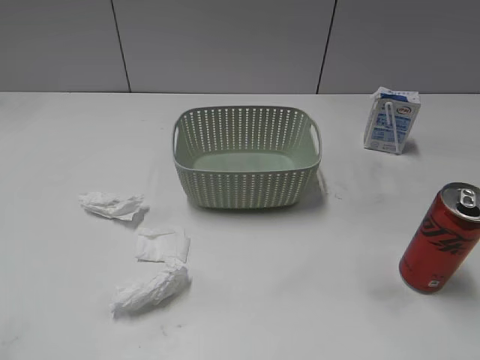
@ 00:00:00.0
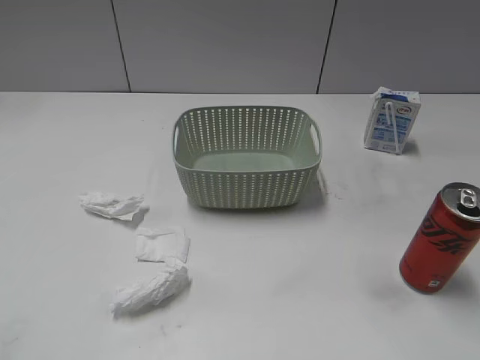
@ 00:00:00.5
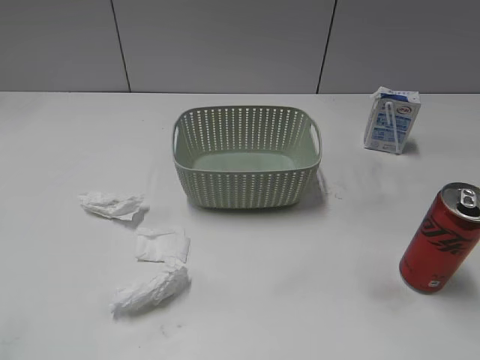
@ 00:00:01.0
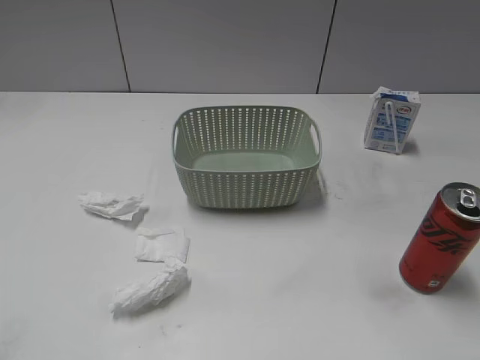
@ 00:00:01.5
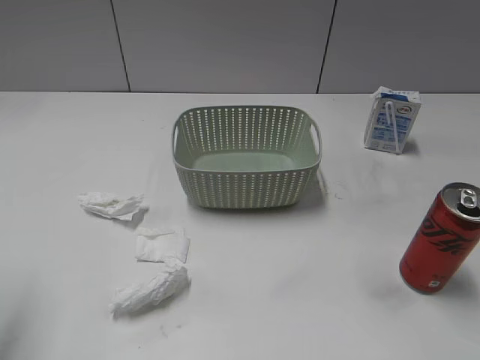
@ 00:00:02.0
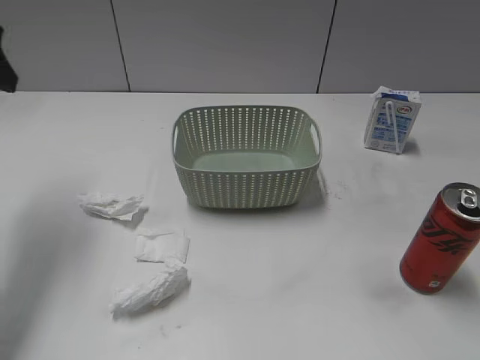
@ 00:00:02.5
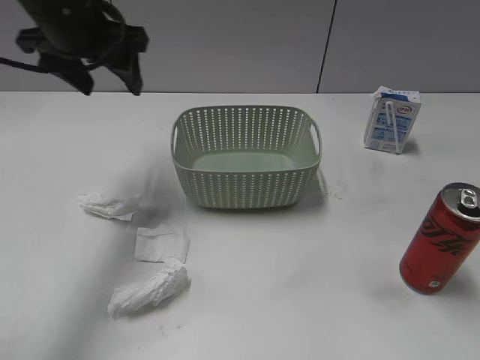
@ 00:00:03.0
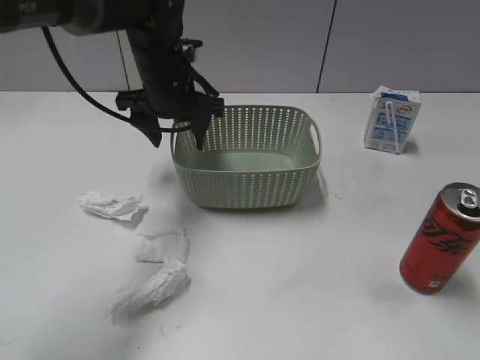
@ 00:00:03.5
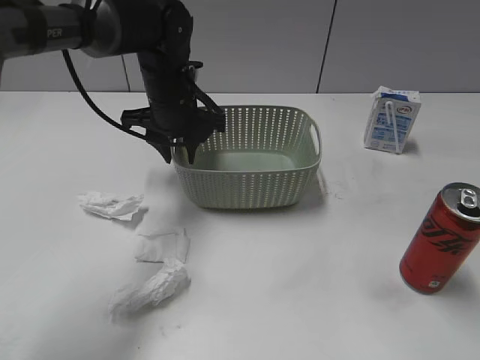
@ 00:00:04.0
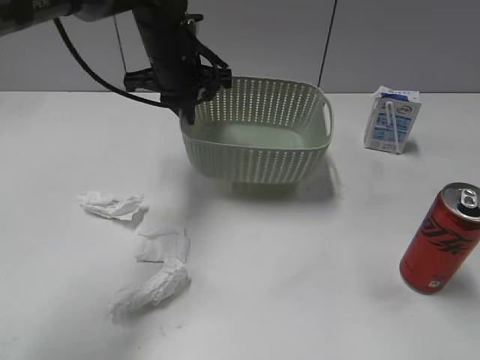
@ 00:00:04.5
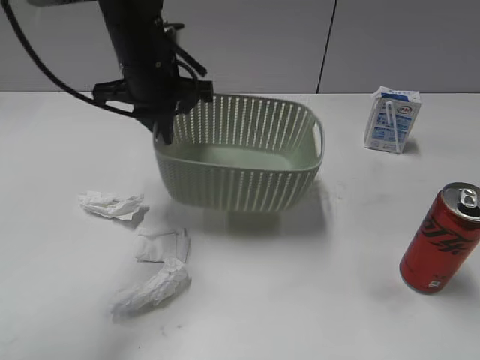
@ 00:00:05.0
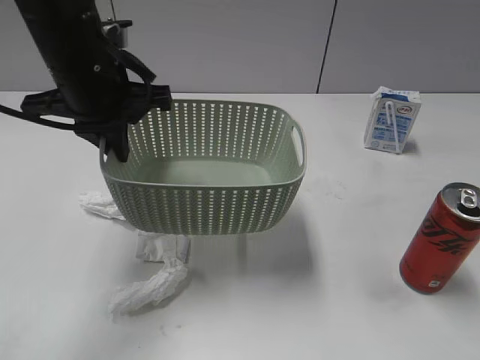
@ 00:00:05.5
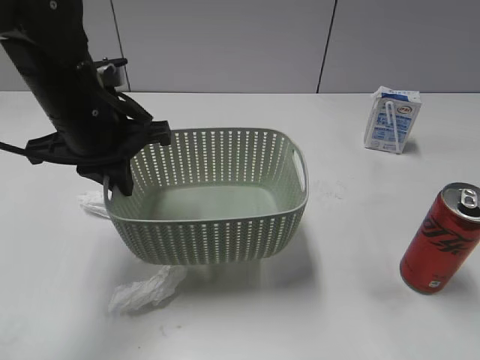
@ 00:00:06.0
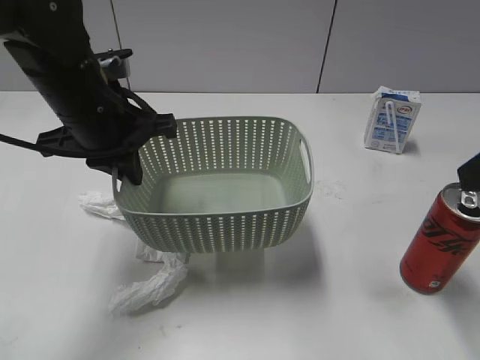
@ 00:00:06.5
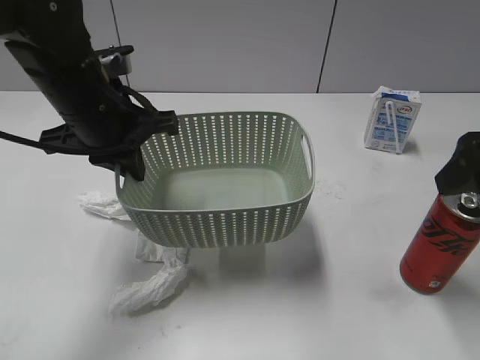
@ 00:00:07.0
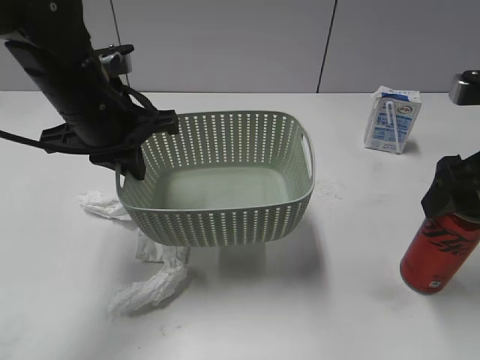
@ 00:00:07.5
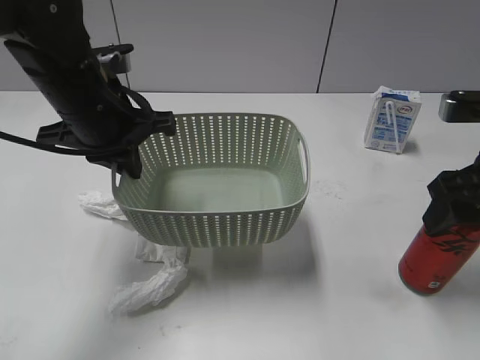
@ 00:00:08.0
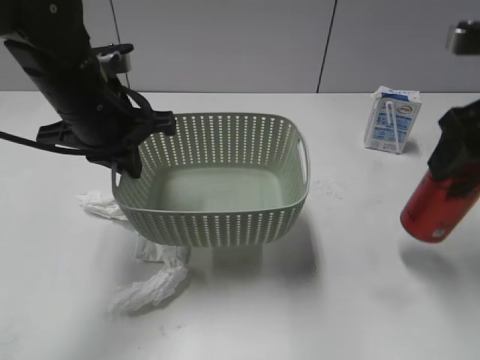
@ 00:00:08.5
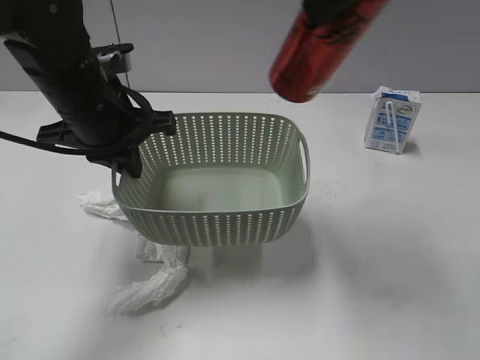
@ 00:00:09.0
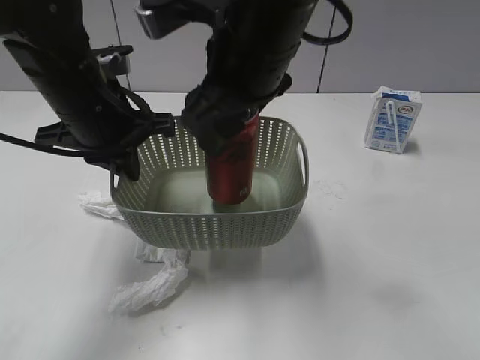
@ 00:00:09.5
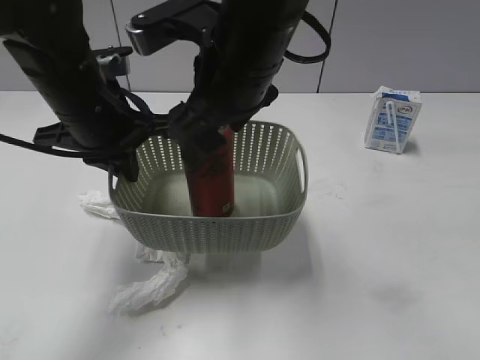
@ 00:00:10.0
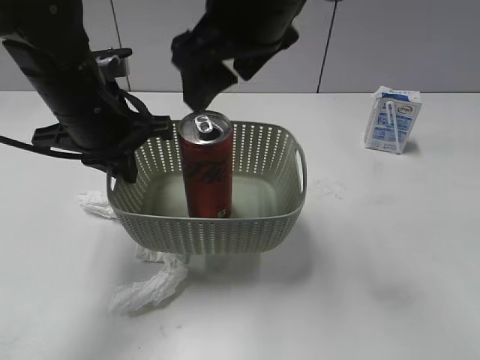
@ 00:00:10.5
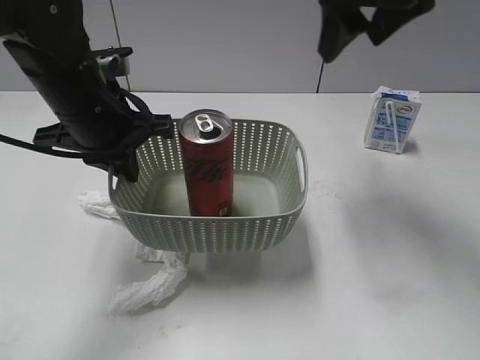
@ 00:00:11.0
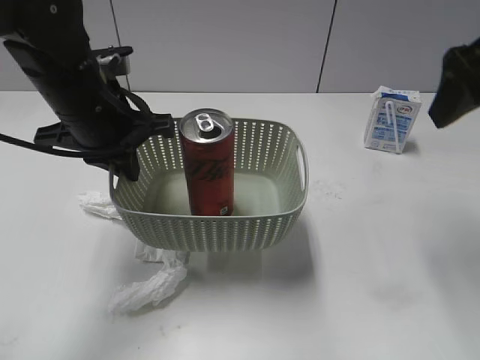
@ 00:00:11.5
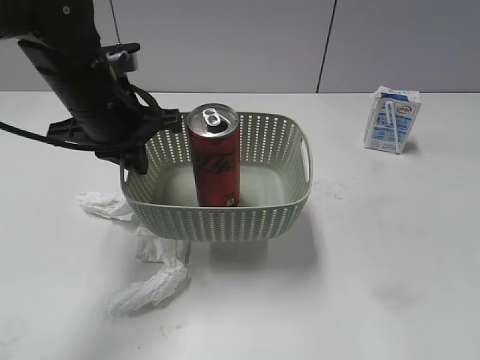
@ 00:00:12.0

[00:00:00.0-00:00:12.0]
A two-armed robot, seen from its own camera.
Step, 00:00:02.5 to 00:00:04.0: Grasp the basket with left gripper.
Step, 00:00:04.5 to 00:00:06.0: Lift the basket with left gripper.
Step, 00:00:06.5 to 00:00:08.0: Grasp the cola can with right gripper.
Step, 00:00:08.5 to 00:00:10.5: Place the cola can in the basket with right gripper.
00:00:02.0 to 00:00:04.0: The left gripper shifts roughly 40 cm forward, to the right and downward, and closes up.
00:00:04.0 to 00:00:06.0: The right gripper goes approximately 10 cm forward and upward, while the left gripper shifts some 15 cm backward, upward and to the left, and closes.
00:00:06.0 to 00:00:08.0: The right gripper is displaced forward and downward by approximately 20 cm, and closes up.
00:00:08.0 to 00:00:10.0: The right gripper heads to the left, covering about 25 cm, and opens up.
00:00:10.0 to 00:00:12.0: The right gripper travels to the right and backward by roughly 30 cm.

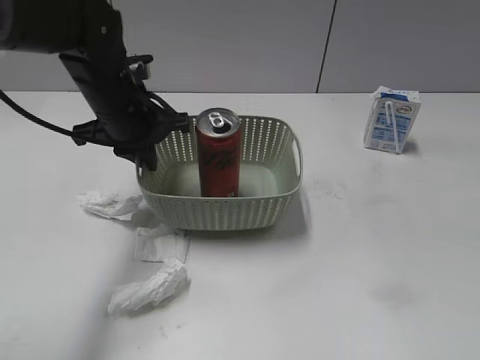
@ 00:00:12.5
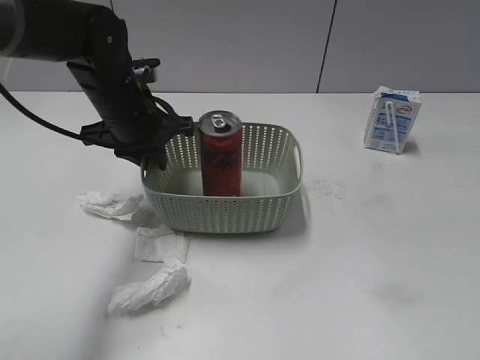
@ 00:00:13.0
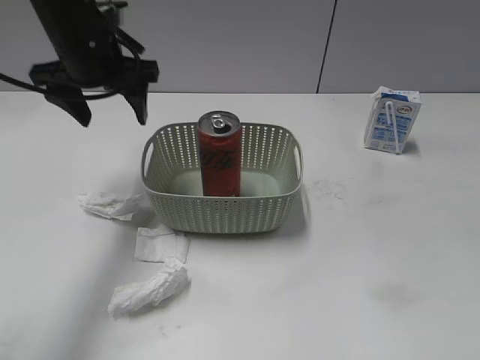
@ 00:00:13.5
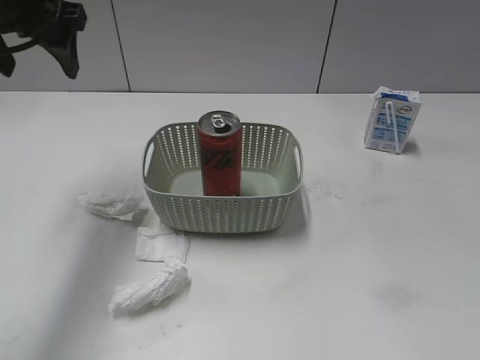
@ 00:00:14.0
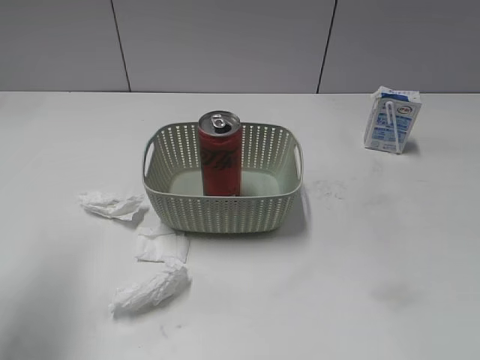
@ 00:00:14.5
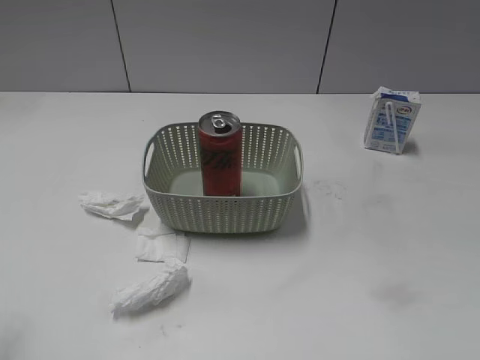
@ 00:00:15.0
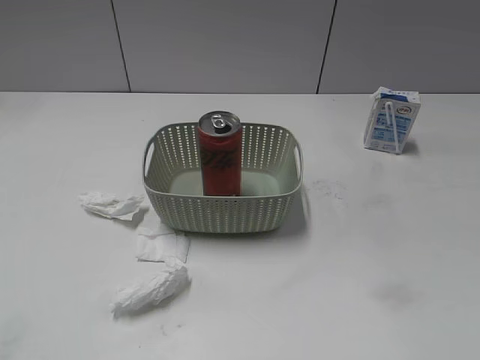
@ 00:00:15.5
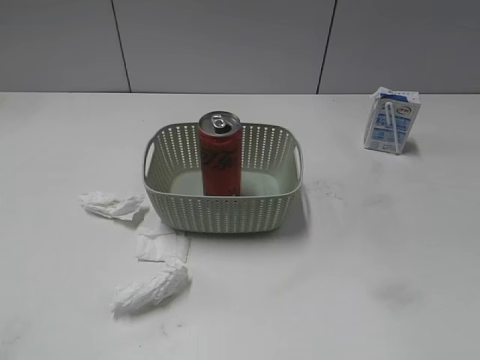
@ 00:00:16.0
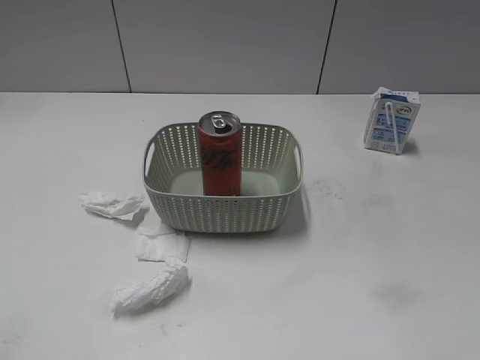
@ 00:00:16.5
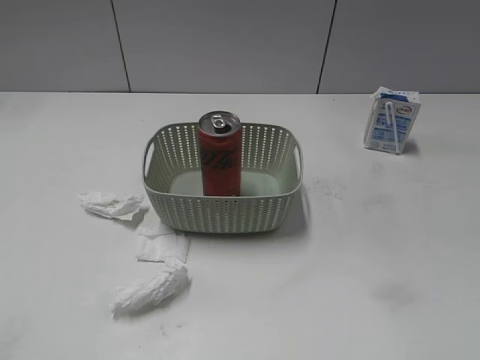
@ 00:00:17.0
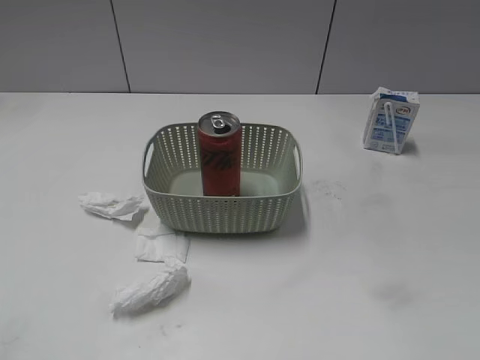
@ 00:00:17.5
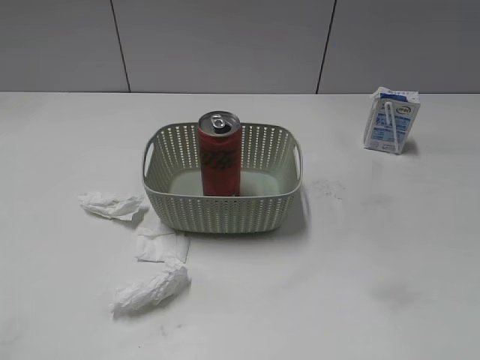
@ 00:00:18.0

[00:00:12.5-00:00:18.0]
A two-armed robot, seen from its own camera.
00:00:12.5 to 00:00:14.5: The left gripper goes approximately 20 cm backward, to the left and upward, and opens.
00:00:14.5 to 00:00:16.0: The left gripper moves backward, about 20 cm.

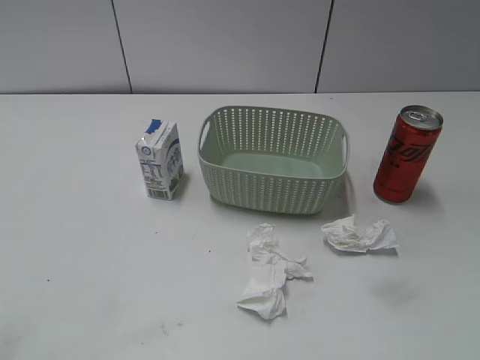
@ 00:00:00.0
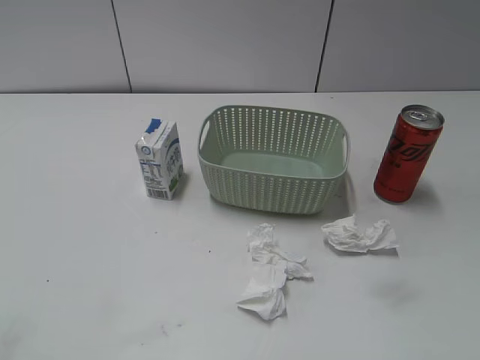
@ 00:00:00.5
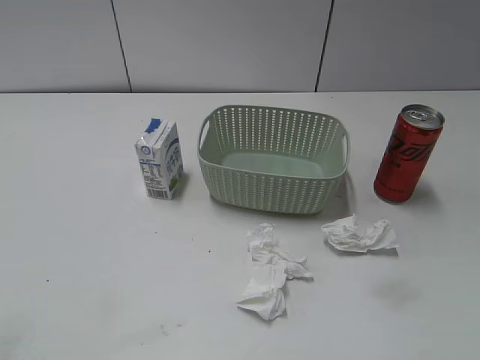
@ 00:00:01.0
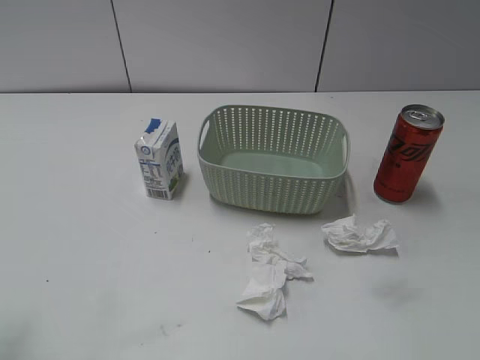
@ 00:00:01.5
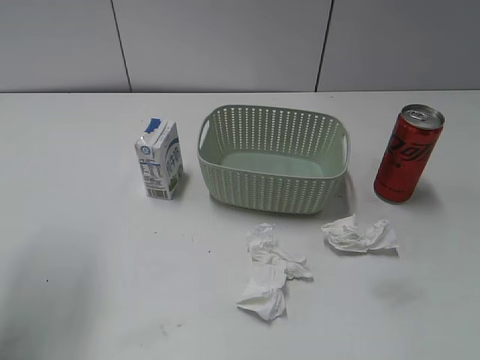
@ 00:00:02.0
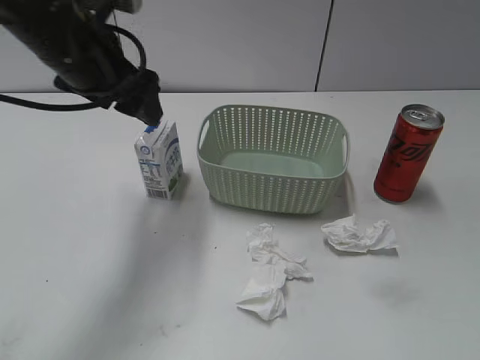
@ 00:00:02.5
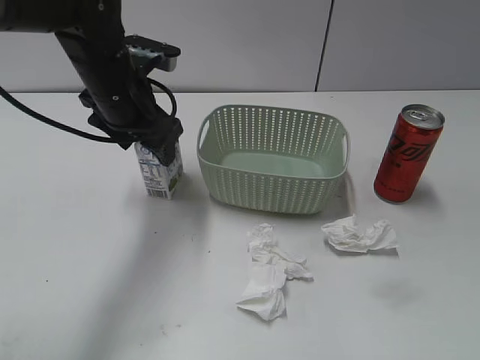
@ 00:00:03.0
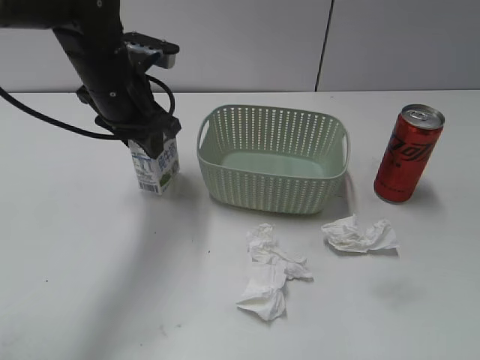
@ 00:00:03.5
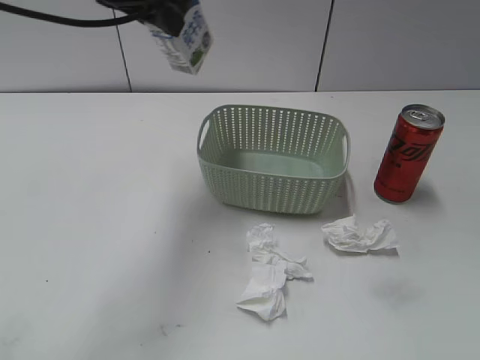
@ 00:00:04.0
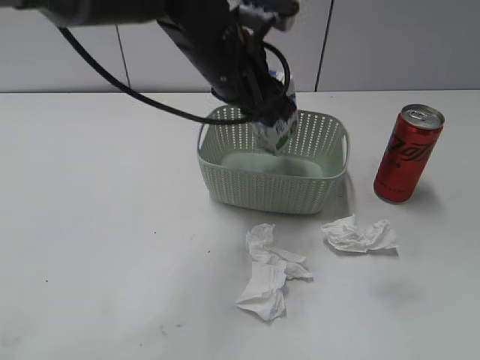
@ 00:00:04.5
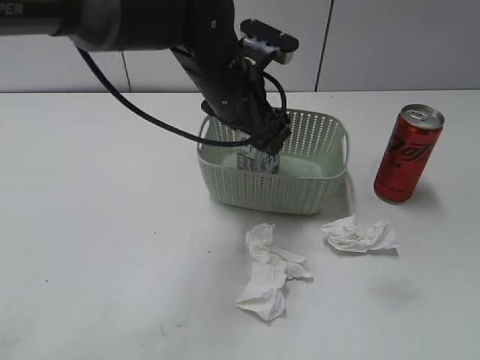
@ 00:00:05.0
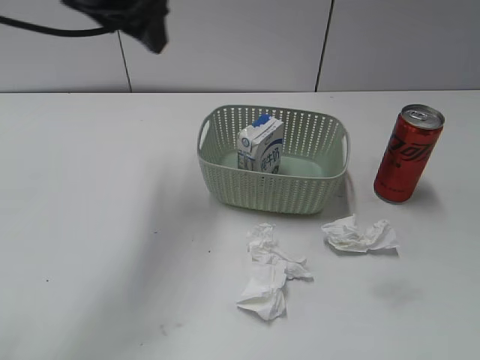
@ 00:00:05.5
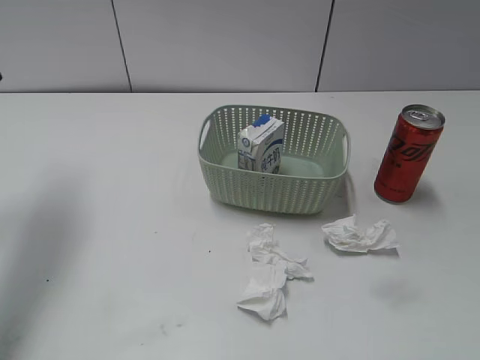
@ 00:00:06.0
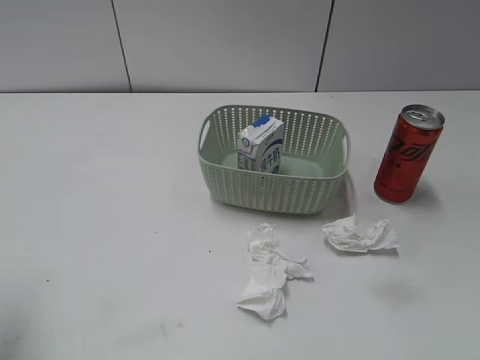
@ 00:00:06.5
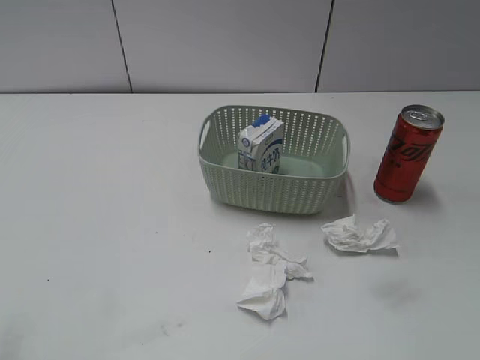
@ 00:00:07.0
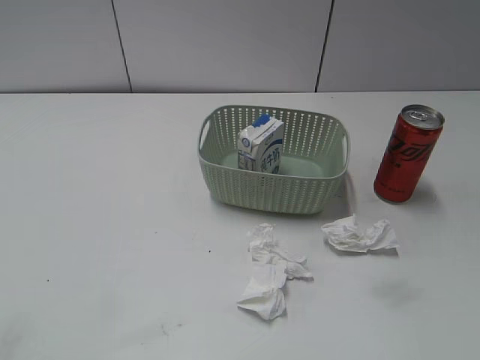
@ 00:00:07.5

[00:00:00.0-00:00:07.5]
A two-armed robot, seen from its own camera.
Step, 00:00:02.5 to 00:00:03.0: Grasp the milk with left gripper.
Step, 00:00:03.5 to 00:00:05.0: Place the milk in the basket with left gripper.
00:00:02.0 to 00:00:04.0: The left gripper heads to the right and forward, covering some 20 cm, and closes.
00:00:04.0 to 00:00:05.5: The left gripper travels to the right and back again, approximately 10 cm each way, and opens its fingers.
00:00:05.5 to 00:00:07.5: The left gripper is displaced backward and to the left by roughly 35 cm.
